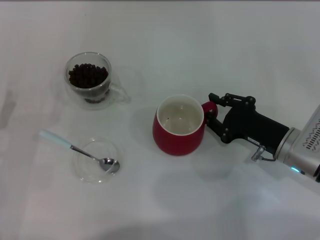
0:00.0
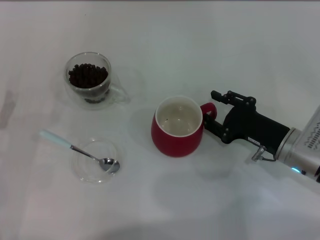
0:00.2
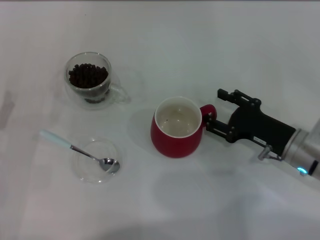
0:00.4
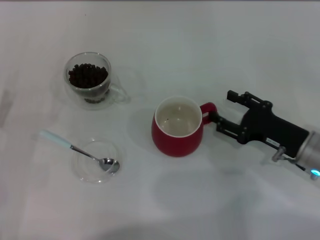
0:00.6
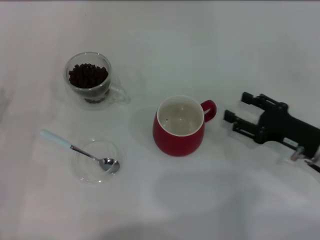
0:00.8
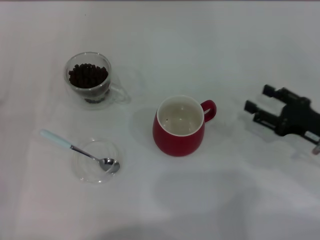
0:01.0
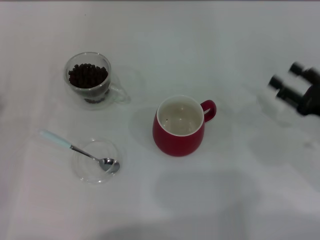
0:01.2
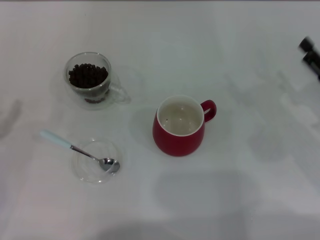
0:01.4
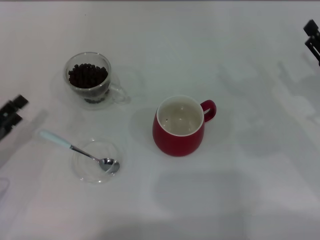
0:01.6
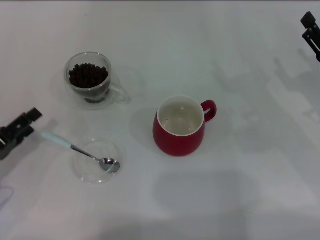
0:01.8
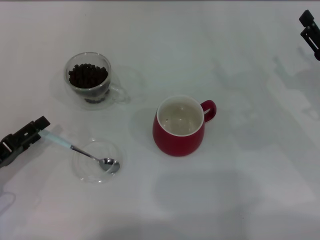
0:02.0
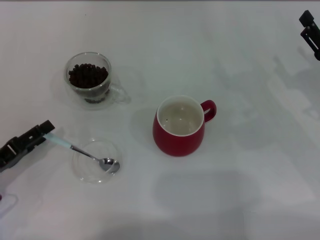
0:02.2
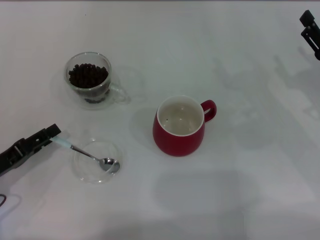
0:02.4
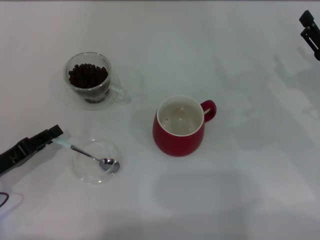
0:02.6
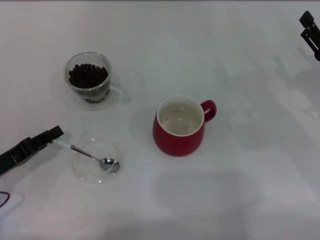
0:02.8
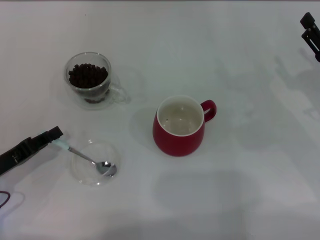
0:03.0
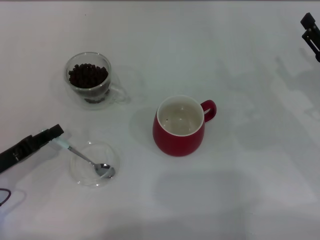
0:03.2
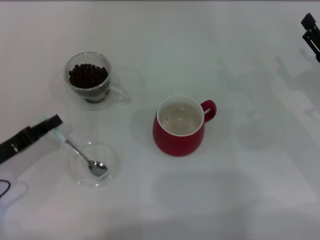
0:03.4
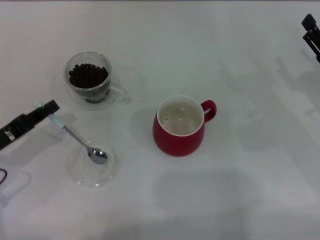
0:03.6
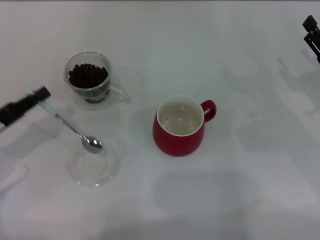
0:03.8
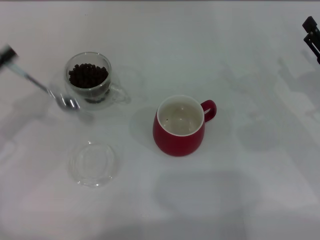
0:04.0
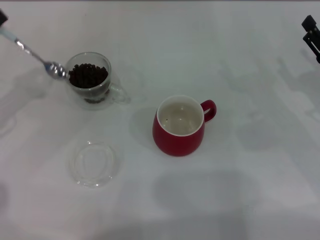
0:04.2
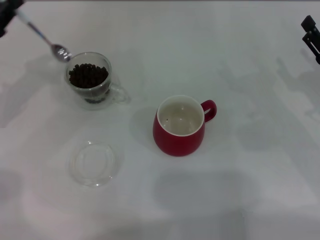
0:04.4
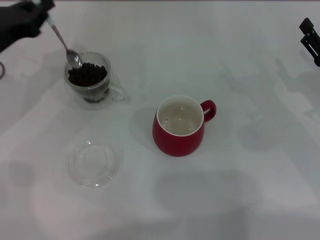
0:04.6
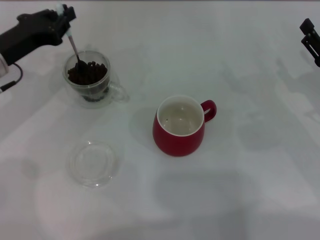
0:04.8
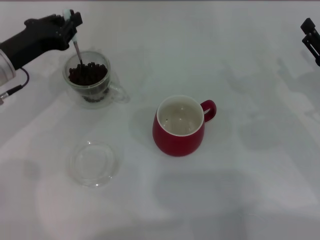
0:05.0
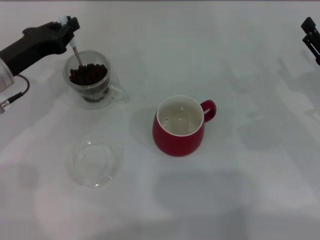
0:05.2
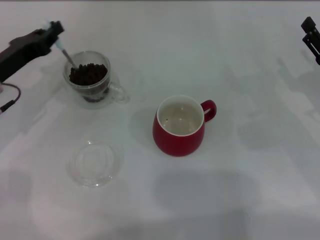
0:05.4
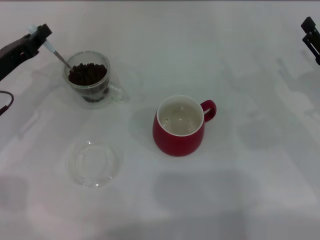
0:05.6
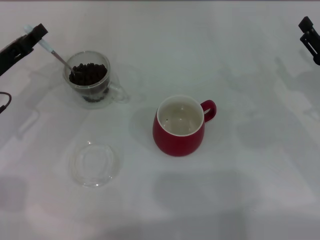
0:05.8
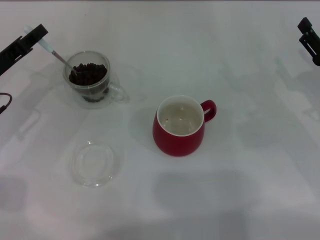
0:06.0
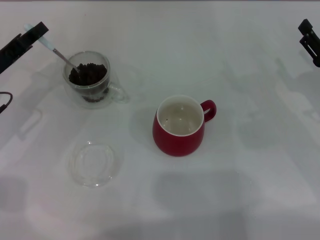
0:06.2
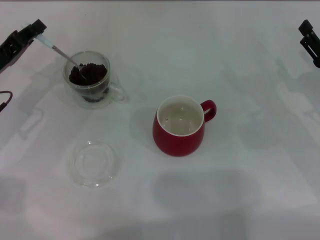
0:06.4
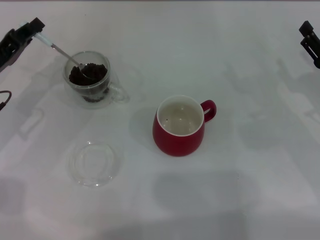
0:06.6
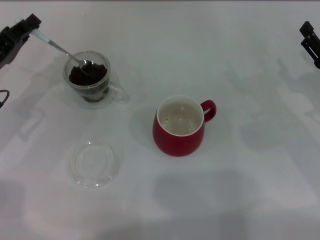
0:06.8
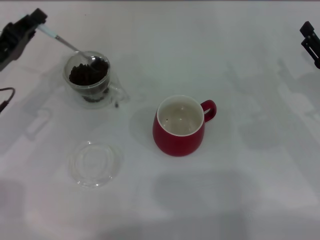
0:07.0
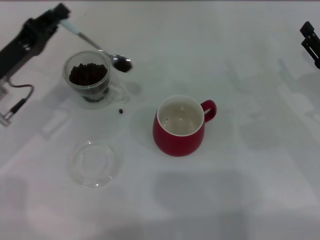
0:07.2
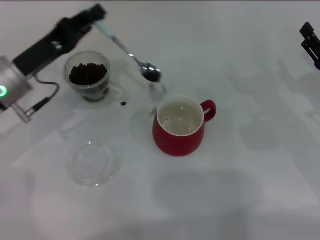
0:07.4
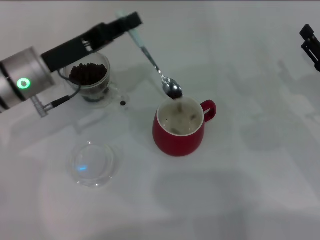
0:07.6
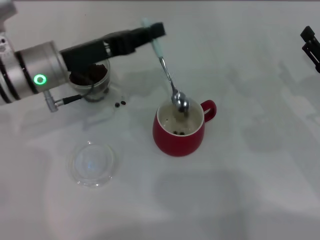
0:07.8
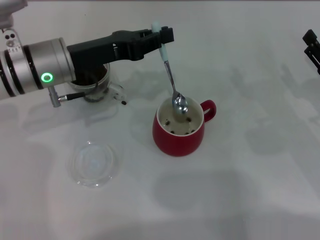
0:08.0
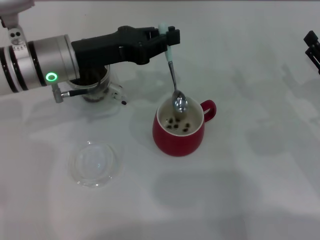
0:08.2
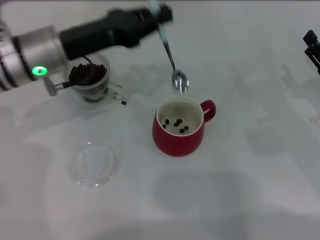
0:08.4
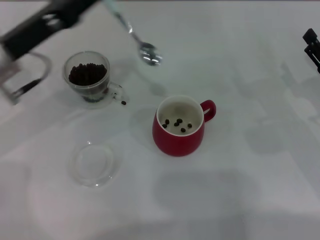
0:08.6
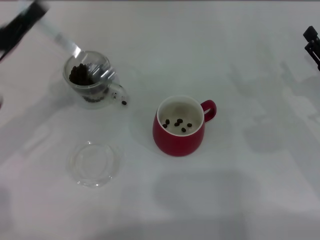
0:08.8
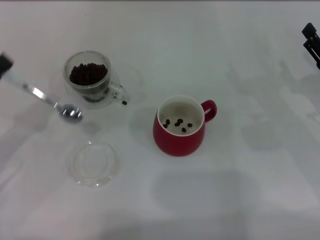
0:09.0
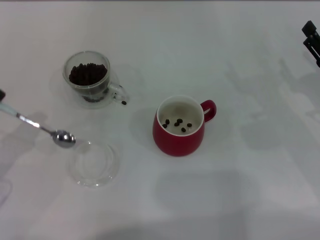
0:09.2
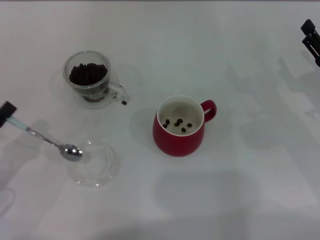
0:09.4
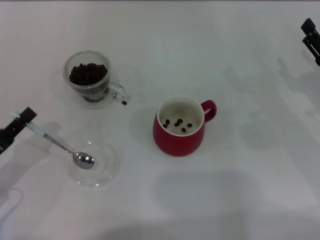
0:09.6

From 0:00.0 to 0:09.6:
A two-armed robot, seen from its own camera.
Task of the whole recording: Use a blue spoon to take out the coffee beans from the glass and pour them into the red cup.
Step, from 0:01.0 to 0:03.6: Pick up the spoon with the right gripper.
From 0:00.0 to 0:01.6: The right gripper shifts some 10 cm to the right, and opens.
From 0:01.6 to 0:03.2: The left gripper closes.
From 0:03.2 to 0:04.8: The left gripper heads forward and upward, covering some 15 cm.
From 0:04.8 to 0:06.4: The left gripper ends up roughly 5 cm from where it was.
From 0:06.4 to 0:08.0: The left gripper is displaced to the right by some 10 cm.
From 0:08.0 to 0:09.6: The left gripper moves backward, to the left and downward, about 25 cm.

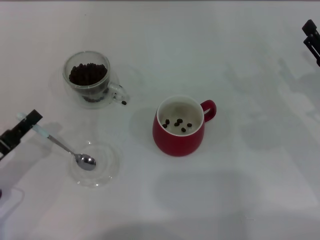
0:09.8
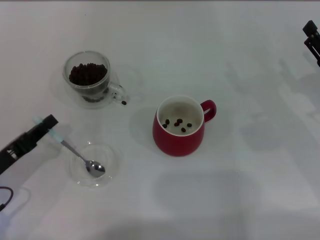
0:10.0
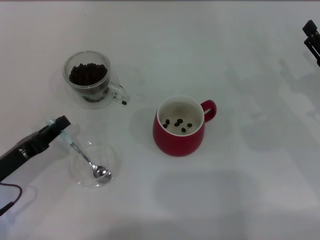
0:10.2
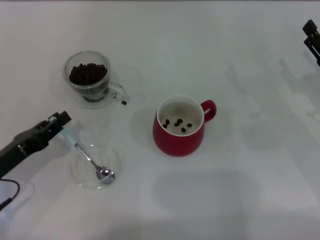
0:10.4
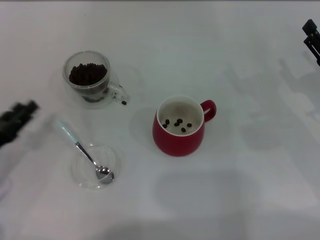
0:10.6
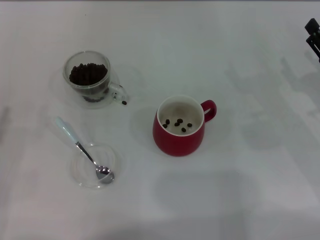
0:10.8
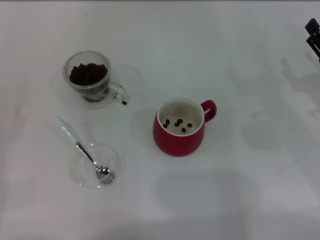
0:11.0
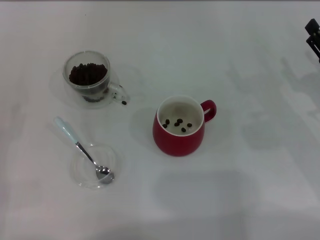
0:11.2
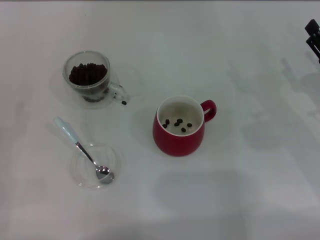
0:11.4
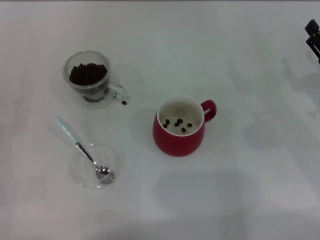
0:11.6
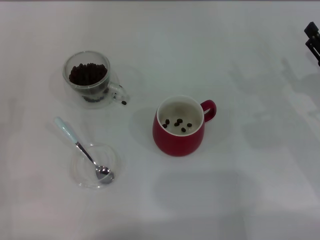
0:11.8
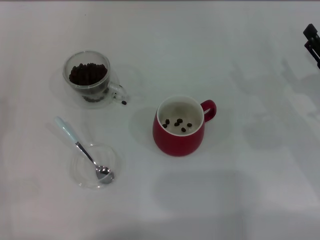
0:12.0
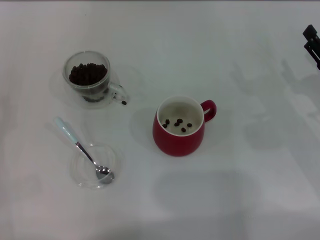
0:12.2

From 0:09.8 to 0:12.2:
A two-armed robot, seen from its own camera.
Task of the whole recording: Use a blue spoon to take out the coffee beans from the glass and pour them into the red cup.
From 0:09.8 to 0:11.0: The left gripper shifts roughly 5 cm to the left, and opens.
